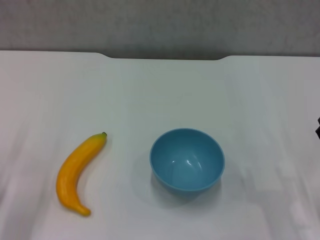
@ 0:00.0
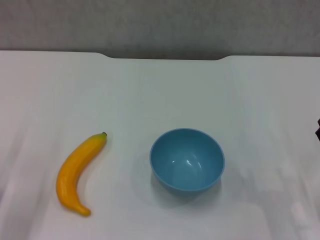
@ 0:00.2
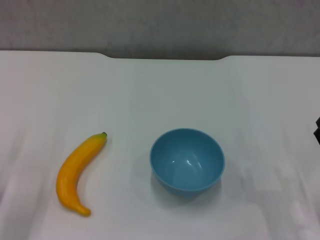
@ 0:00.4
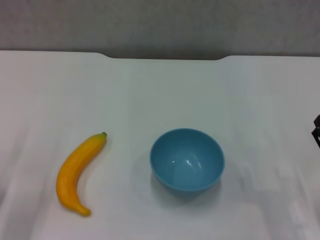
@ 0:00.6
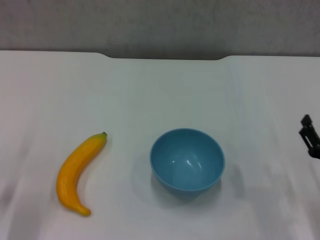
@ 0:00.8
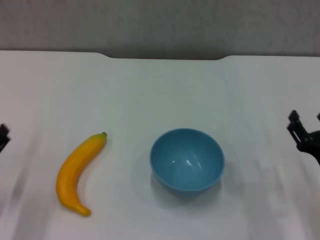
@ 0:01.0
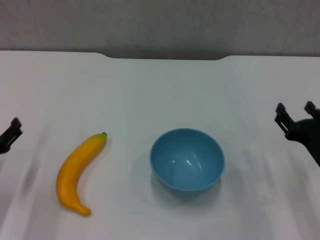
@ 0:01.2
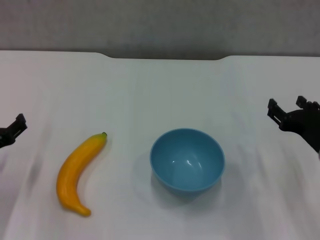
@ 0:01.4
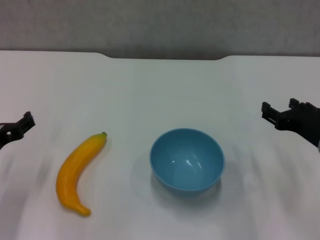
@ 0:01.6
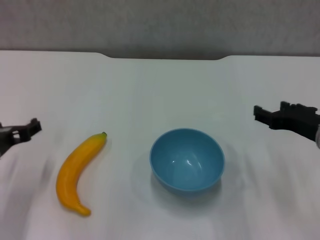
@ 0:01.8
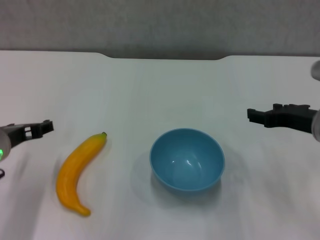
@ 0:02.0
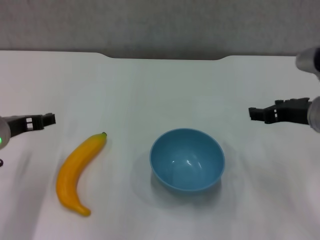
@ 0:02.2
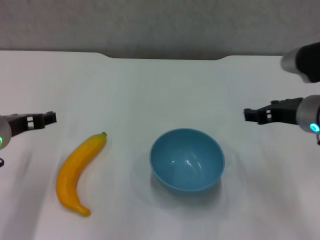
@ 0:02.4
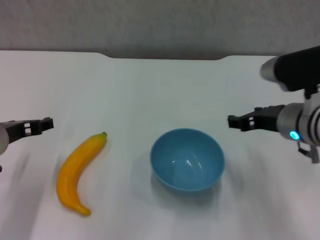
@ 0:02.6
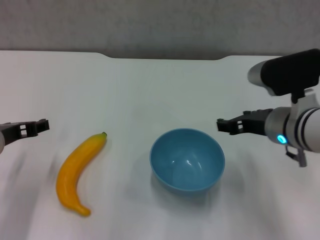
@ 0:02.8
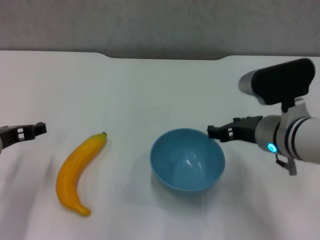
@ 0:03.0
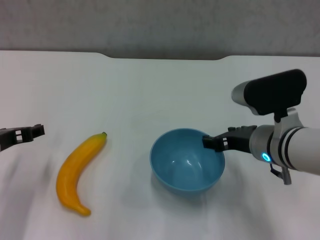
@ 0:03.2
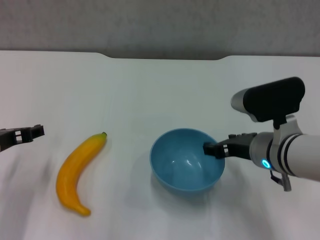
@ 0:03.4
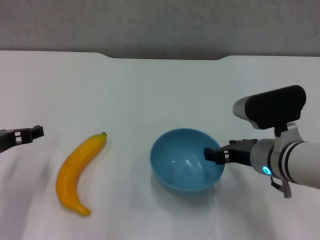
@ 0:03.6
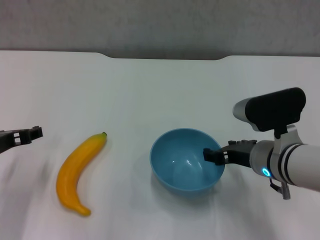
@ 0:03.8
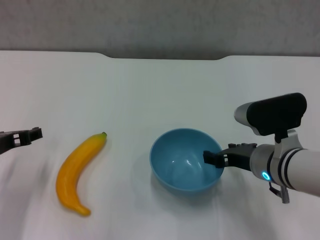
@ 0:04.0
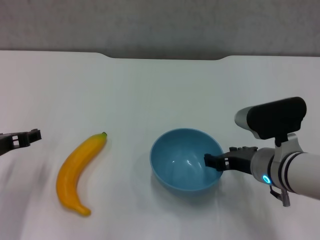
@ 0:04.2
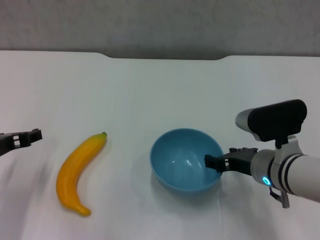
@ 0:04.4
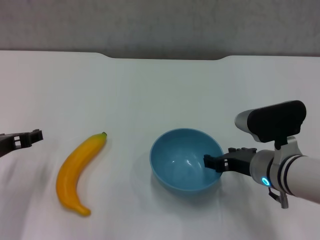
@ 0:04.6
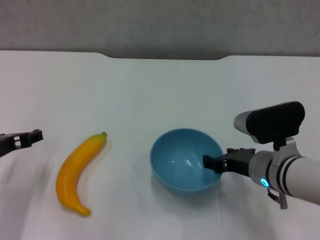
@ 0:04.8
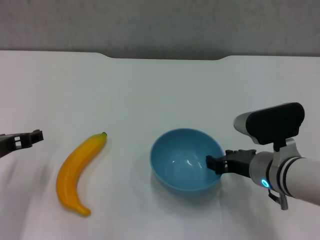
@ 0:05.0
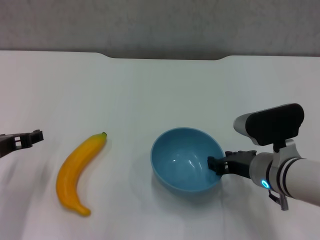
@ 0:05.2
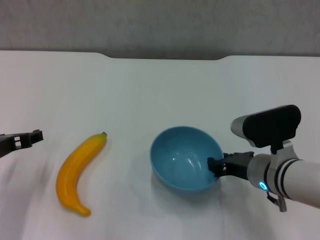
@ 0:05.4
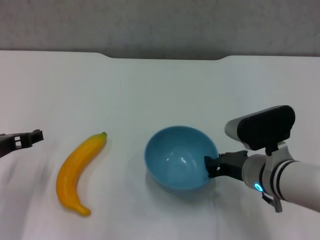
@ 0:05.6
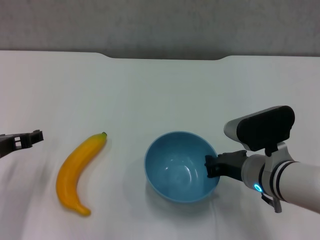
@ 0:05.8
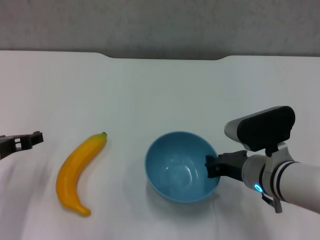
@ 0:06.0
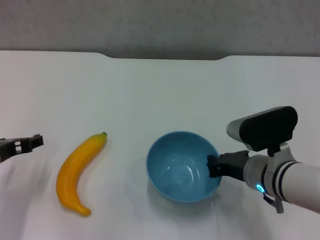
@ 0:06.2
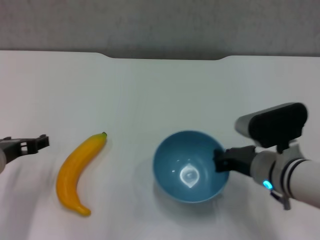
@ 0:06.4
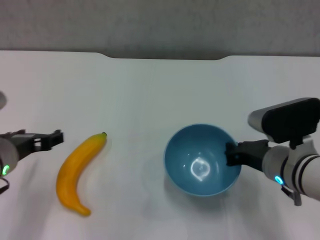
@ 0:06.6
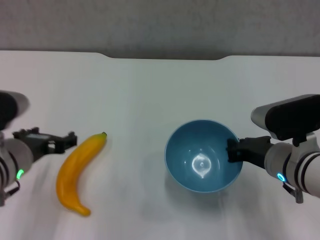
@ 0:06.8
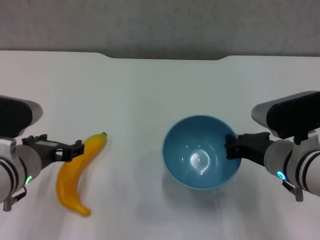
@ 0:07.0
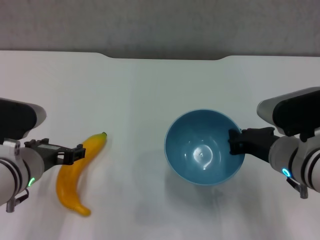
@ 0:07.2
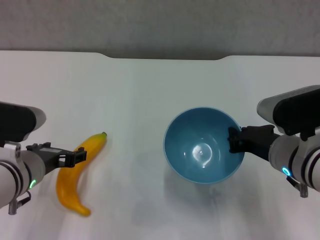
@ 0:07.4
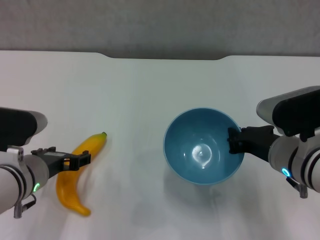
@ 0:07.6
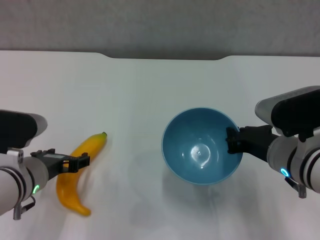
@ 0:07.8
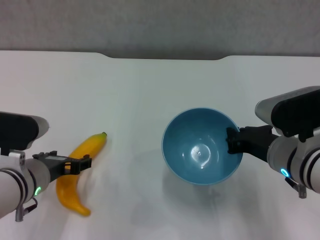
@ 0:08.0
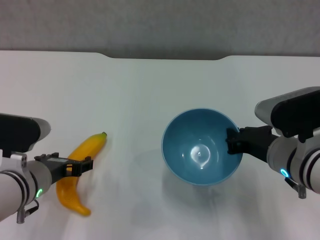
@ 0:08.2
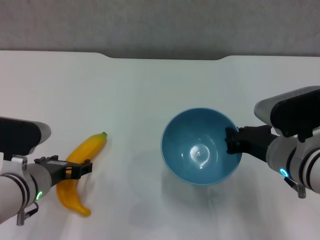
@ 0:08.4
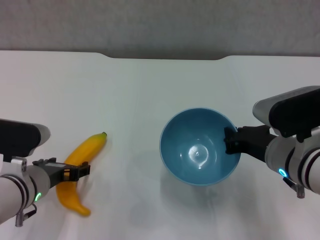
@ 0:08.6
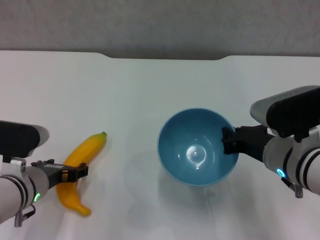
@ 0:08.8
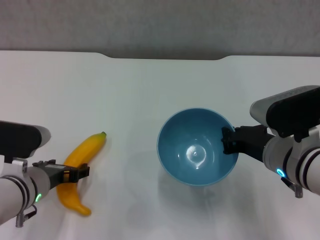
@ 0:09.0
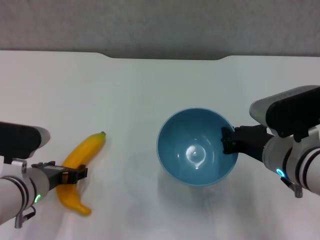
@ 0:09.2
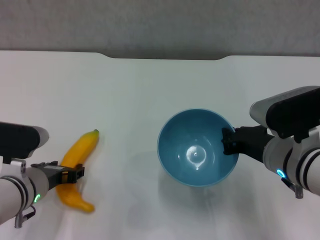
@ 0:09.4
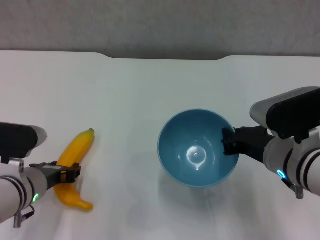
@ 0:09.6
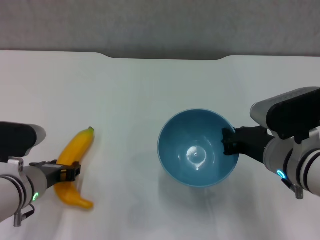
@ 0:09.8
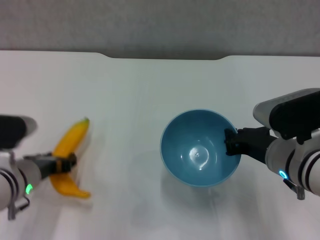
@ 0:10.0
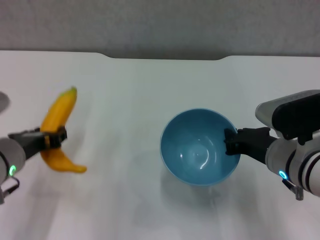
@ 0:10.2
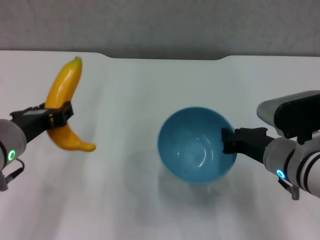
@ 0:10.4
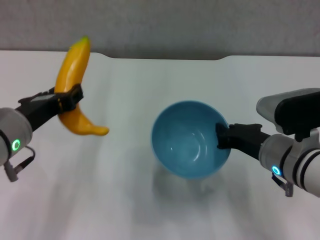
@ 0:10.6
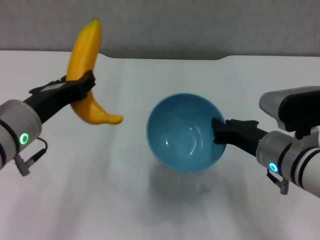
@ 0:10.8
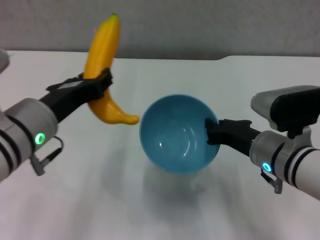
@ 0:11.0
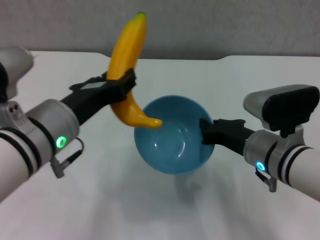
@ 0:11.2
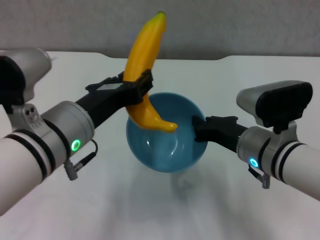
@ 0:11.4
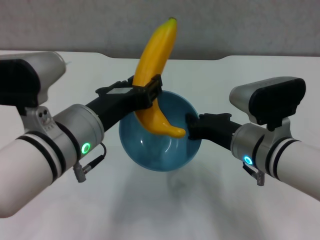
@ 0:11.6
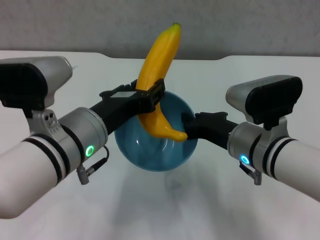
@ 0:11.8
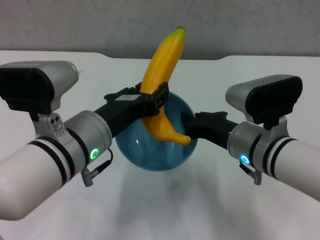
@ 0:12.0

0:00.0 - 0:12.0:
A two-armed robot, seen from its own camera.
Step, 0:00.0 - 0:05.8: Grasp the blue bowl with right gripper.
Step, 0:06.0 - 0:06.8: Lift the blue bowl with right gripper.
Step, 0:07.0 - 0:09.6: Grasp the banana with left gripper.
0:00.0 - 0:01.6: The left gripper goes approximately 10 cm upward, to the right and forward, while the right gripper moves forward and upward, approximately 10 cm.
0:01.6 - 0:03.0: The right gripper heads to the left, covering about 10 cm.
0:03.0 - 0:04.4: The right gripper shifts approximately 5 cm downward.
0:04.4 - 0:06.0: The right gripper closes.
0:06.0 - 0:07.6: The left gripper goes some 5 cm to the right.
0:07.6 - 0:09.0: There are only small adjustments of the grippers.
0:09.0 - 0:10.4: The left gripper shifts some 10 cm upward, and closes.
0:10.4 - 0:12.0: The left gripper is displaced to the right by approximately 10 cm, while the right gripper ends up some 5 cm from where it was.

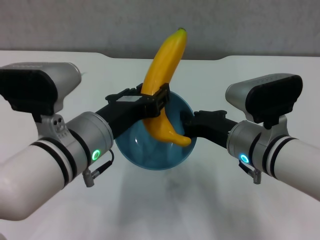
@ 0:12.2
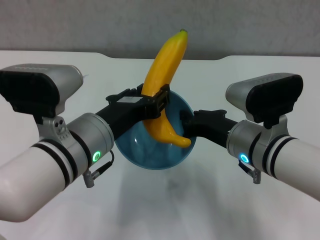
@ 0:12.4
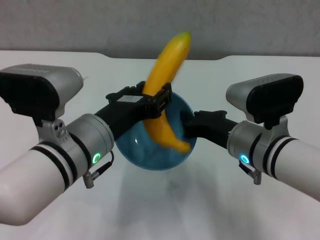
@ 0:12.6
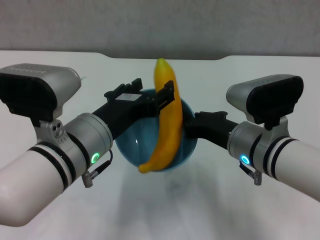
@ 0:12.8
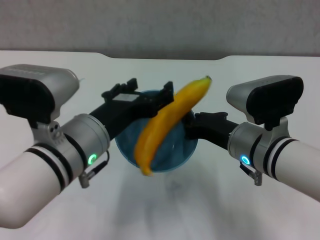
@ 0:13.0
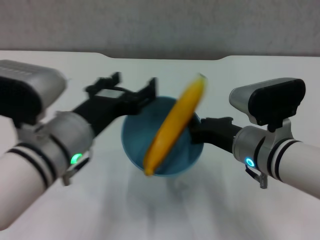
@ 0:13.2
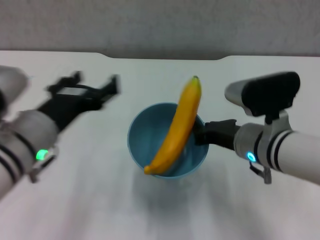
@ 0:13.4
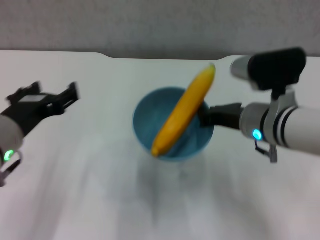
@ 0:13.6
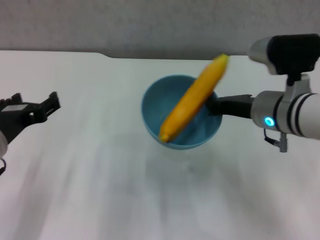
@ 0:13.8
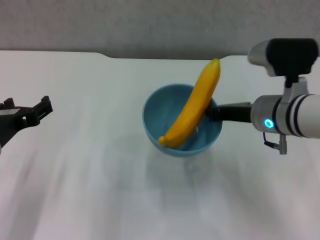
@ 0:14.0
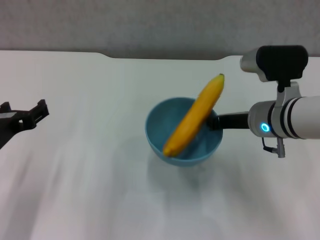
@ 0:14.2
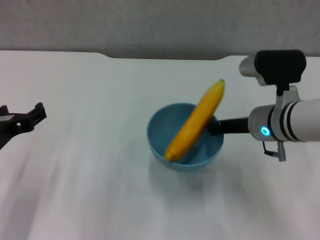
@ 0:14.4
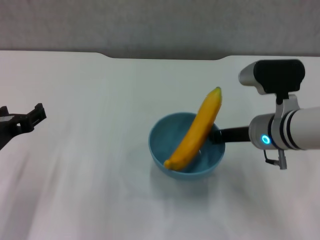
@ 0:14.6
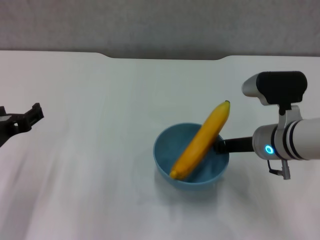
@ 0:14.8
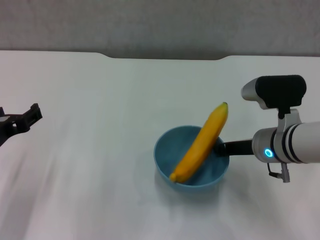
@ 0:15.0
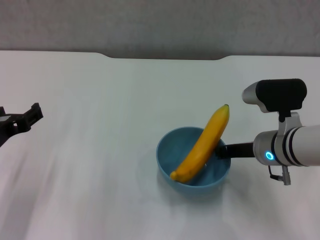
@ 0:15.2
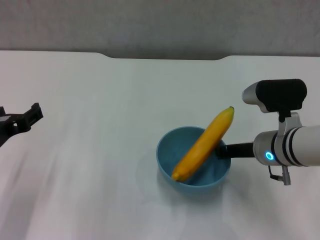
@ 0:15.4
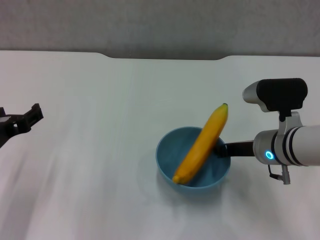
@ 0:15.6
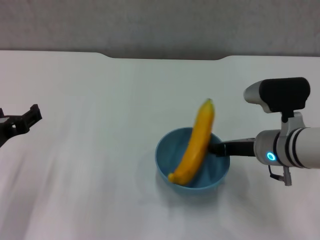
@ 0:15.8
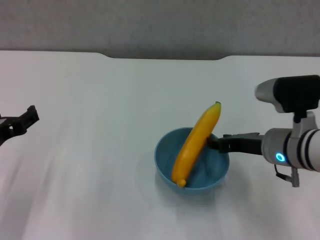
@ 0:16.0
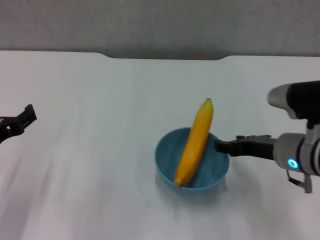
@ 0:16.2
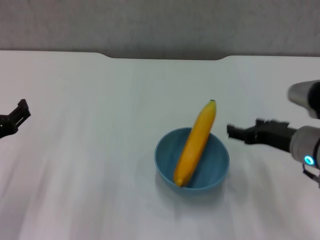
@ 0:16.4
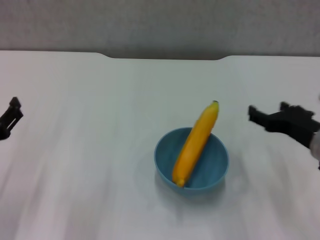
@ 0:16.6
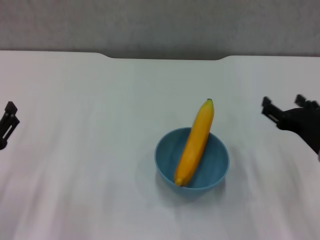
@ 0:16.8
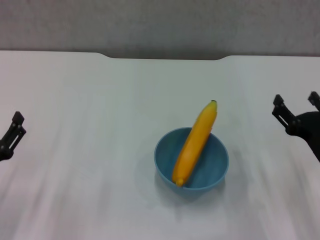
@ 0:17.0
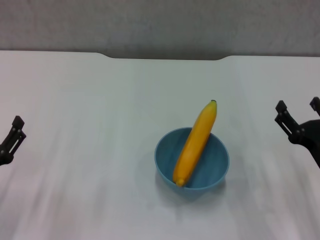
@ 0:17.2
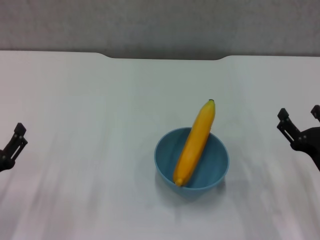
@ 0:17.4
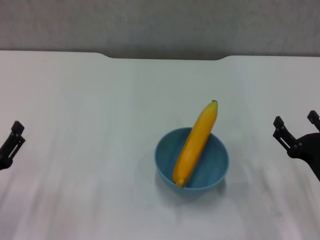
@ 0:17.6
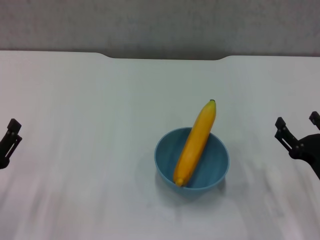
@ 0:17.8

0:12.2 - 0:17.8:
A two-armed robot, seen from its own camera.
Step, 0:13.0 - 0:16.0: Place the bowl on the table with right gripper.
0:12.2 - 0:13.6: The left gripper goes about 10 cm to the left, and opens its fingers.
0:13.6 - 0:15.0: The left gripper shifts by approximately 5 cm. Meanwhile the right gripper ends up some 5 cm from where it was.
0:15.0 - 0:16.4: The right gripper shifts by approximately 5 cm, and opens up.
0:16.4 - 0:17.8: The right gripper moves downward, backward and to the right, some 10 cm; the left gripper is displaced downward by about 10 cm.
